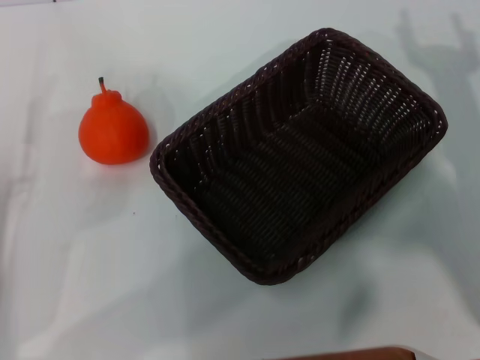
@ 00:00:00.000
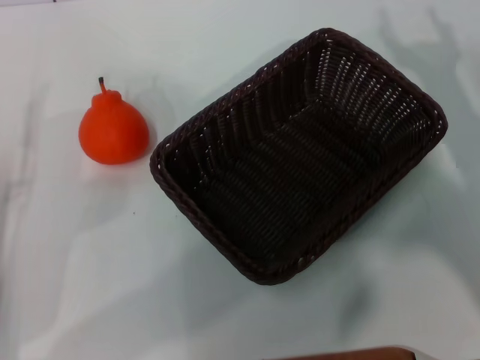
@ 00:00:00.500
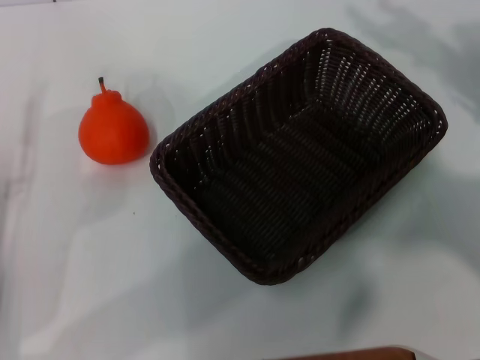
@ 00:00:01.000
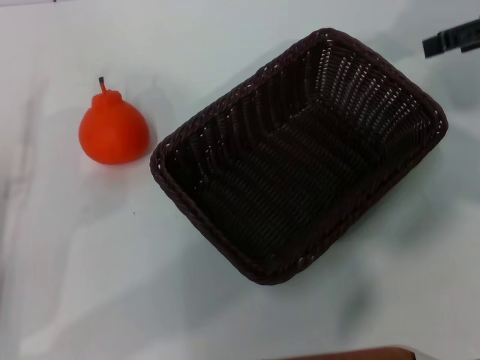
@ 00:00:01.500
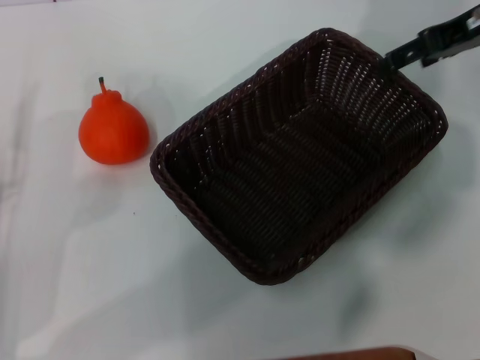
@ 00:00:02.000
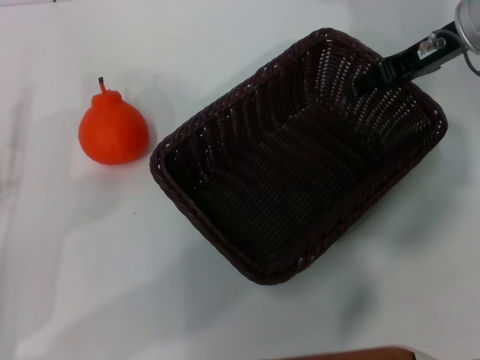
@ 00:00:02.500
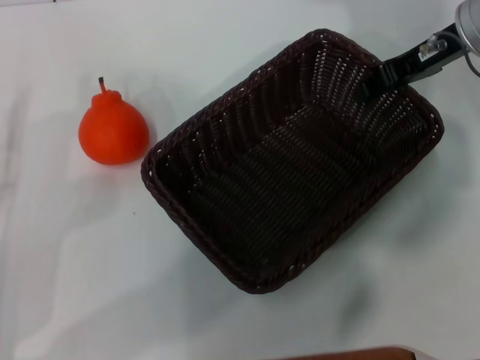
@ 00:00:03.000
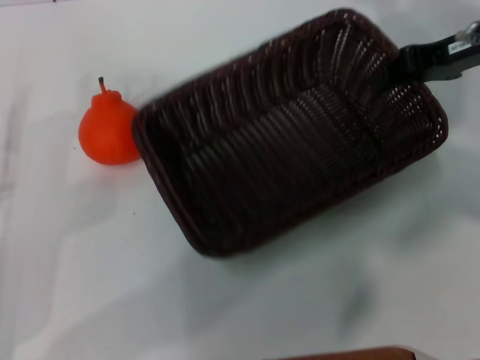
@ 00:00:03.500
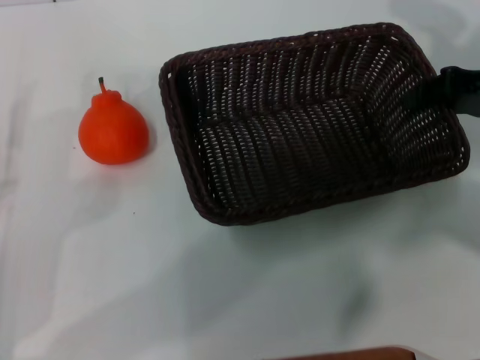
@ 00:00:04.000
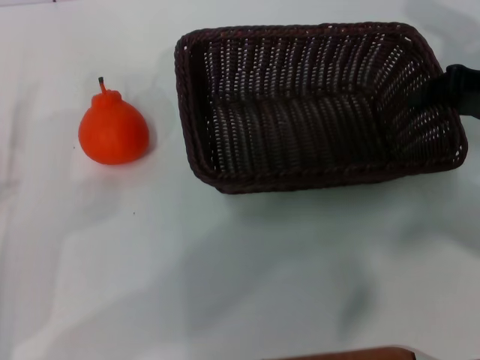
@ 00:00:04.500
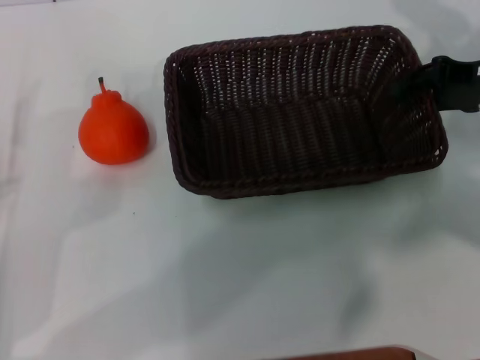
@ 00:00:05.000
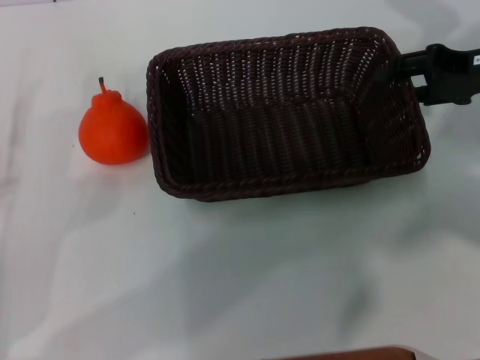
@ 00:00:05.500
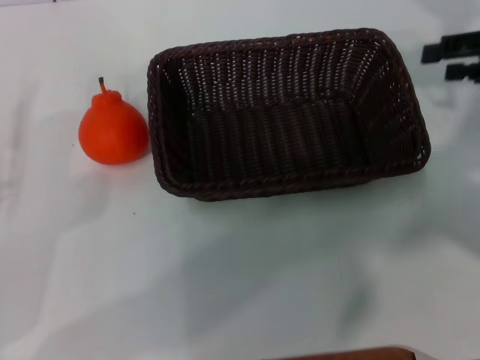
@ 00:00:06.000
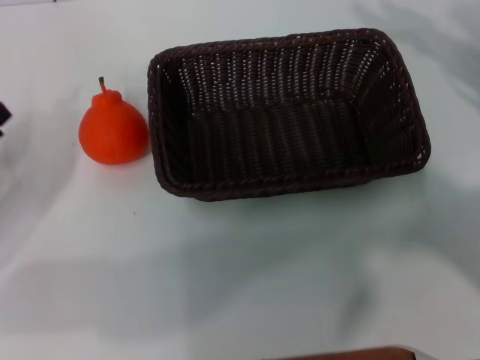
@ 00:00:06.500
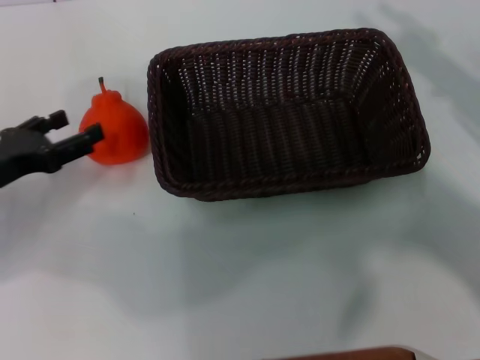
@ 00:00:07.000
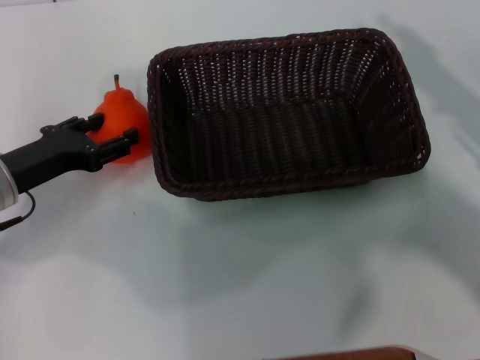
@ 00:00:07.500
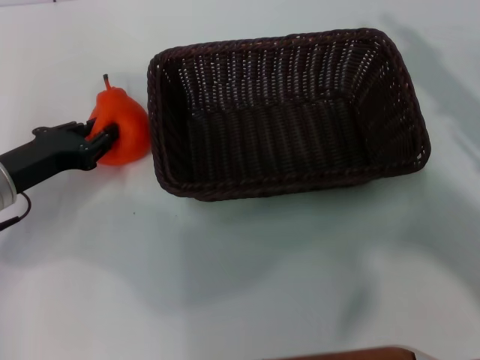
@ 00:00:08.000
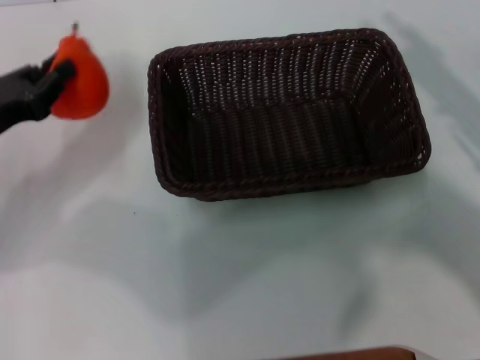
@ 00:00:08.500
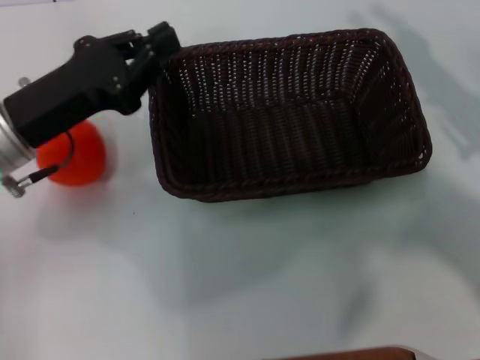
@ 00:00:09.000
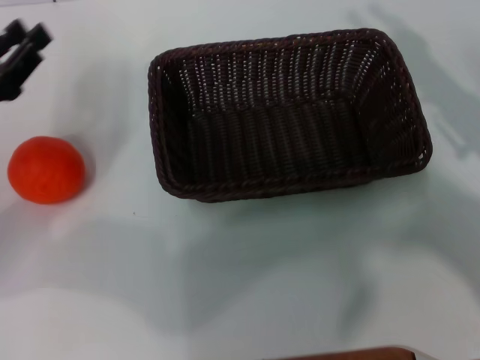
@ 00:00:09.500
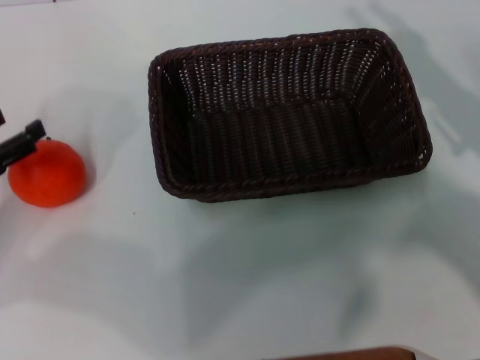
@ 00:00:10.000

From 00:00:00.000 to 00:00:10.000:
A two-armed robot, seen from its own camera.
Task of the whole recording: the right gripper pick up the black basket and place it horizontally in the middle of the table, the left gripper pick up the orange and place it into the black basket.
Step, from 00:00:00.000 to 00:00:03.000: Pick up the dark basket with the right gripper.
Step, from 00:00:03.500 to 00:00:05.000: Place the dark basket in the center of view with the right gripper.
From 00:00:00.000 to 00:00:02.000: The right gripper shifts some 20 cm upward and forward.
From 00:00:02.000 to 00:00:04.000: The right gripper is displaced backward and downward by some 10 cm, and closes up.
From 00:00:04.000 to 00:00:06.000: The right gripper opens.
From 00:00:06.000 to 00:00:08.000: The right gripper travels backward and downward by about 10 cm. The left gripper travels forward and to the right by roughly 10 cm, and closes.
From 00:00:08.000 to 00:00:10.000: The left gripper heads to the left, covering roughly 5 cm, and closes, then reopens.

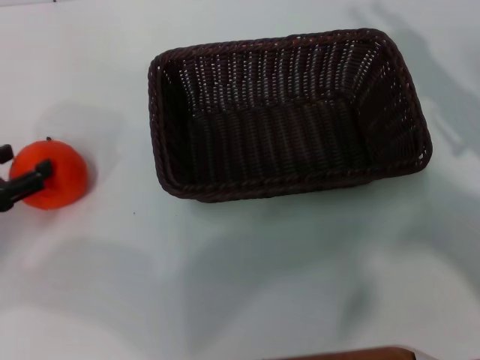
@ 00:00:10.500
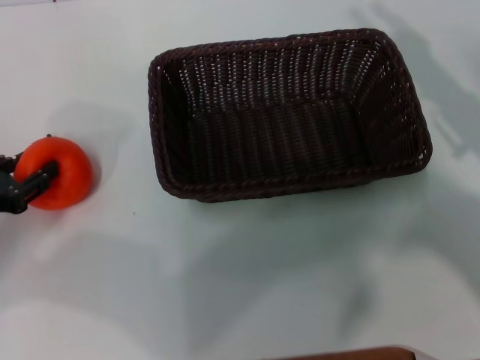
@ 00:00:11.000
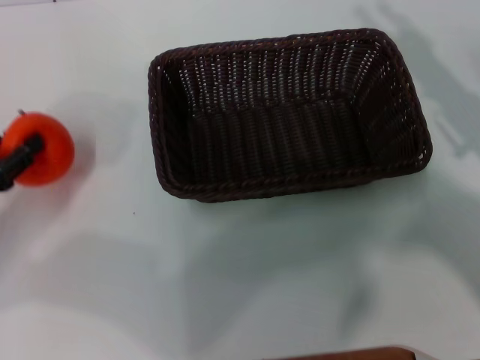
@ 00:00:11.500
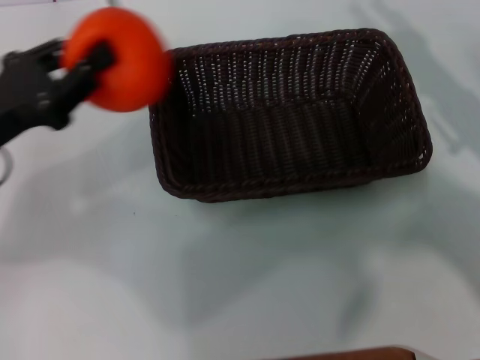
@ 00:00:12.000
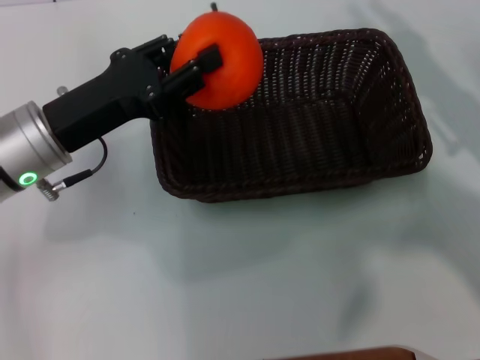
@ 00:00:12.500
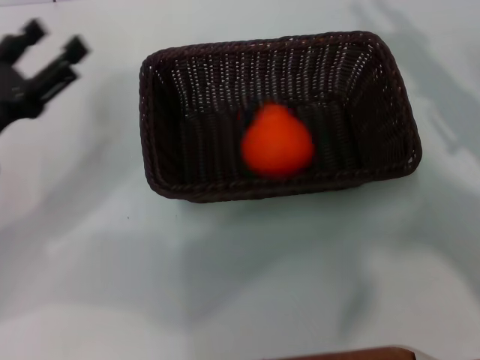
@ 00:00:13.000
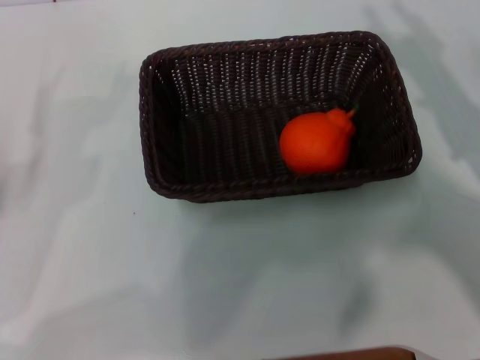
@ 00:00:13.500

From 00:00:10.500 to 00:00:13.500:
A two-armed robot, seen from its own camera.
Task of the whole recording: the right gripper pick up the black basket and place it horizontally in the middle of the table, the left gripper pick up the orange and place it into the black basket.
Step, from 00:00:12.000 to 00:00:12.500: Place the orange into the dark basket with the left gripper.
From 00:00:10.500 to 00:00:12.000: The left gripper shifts approximately 10 cm to the right and upward, and closes.
From 00:00:12.000 to 00:00:13.500: The left gripper heads downward, to the left and backward, covering roughly 10 cm, and opens.
